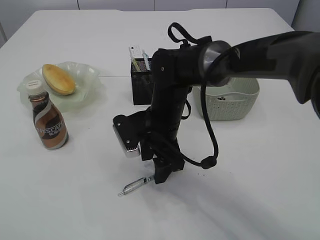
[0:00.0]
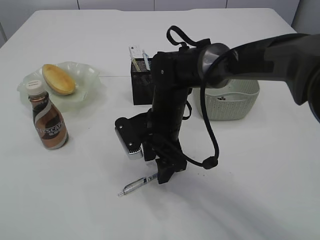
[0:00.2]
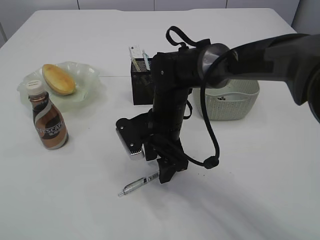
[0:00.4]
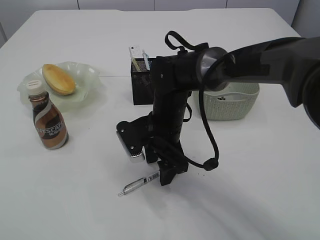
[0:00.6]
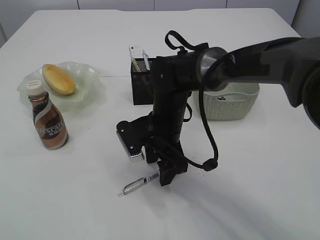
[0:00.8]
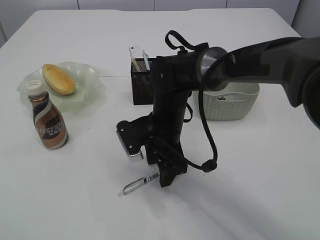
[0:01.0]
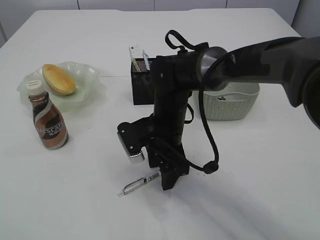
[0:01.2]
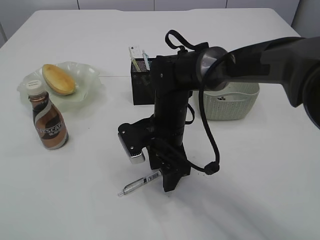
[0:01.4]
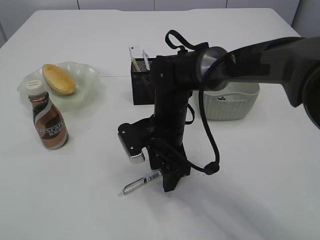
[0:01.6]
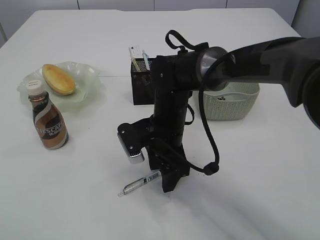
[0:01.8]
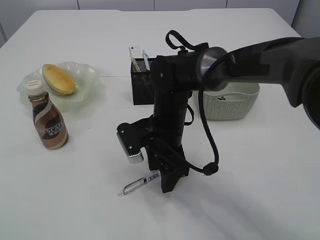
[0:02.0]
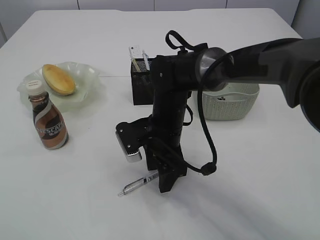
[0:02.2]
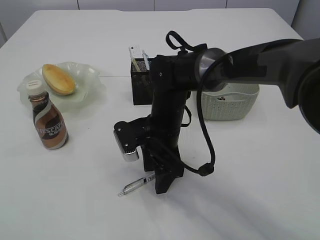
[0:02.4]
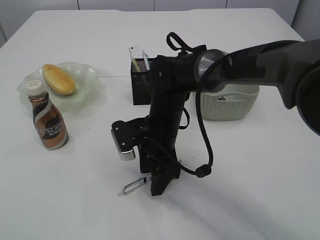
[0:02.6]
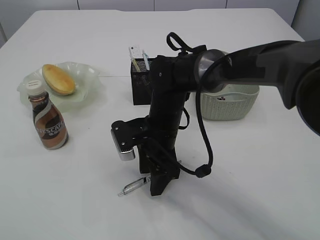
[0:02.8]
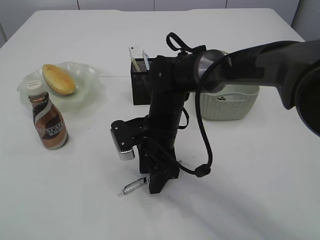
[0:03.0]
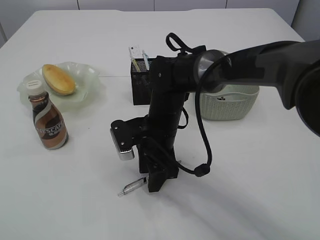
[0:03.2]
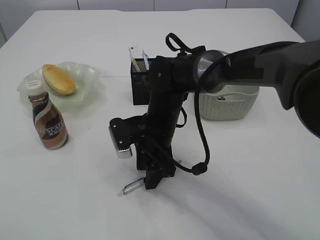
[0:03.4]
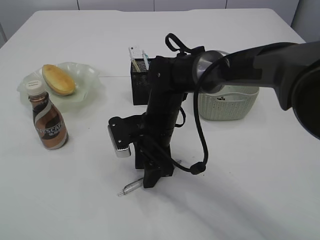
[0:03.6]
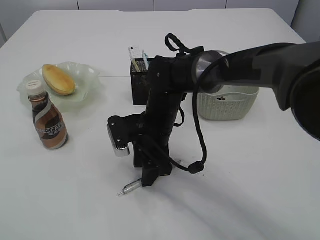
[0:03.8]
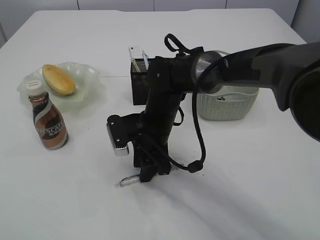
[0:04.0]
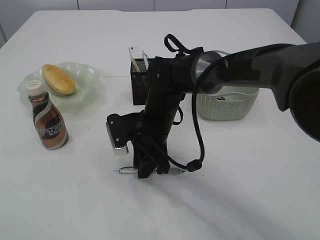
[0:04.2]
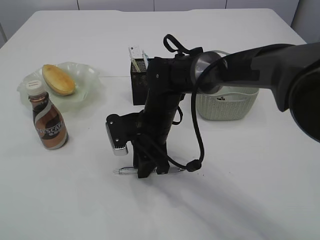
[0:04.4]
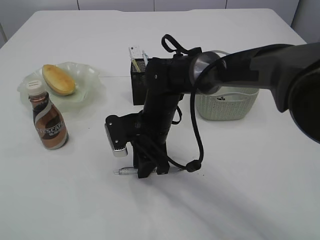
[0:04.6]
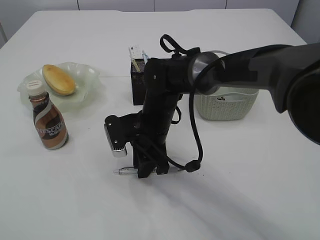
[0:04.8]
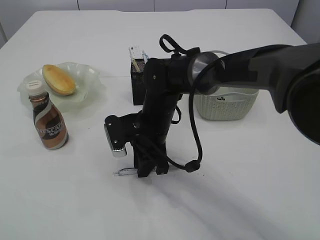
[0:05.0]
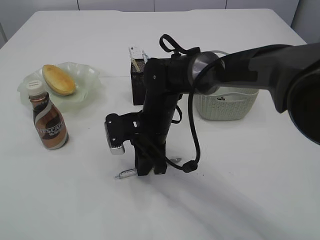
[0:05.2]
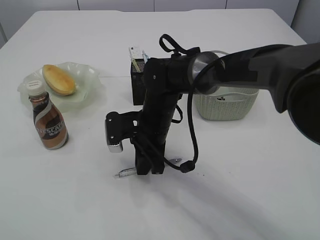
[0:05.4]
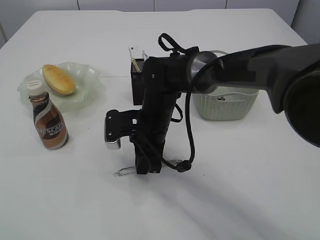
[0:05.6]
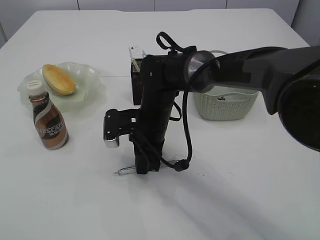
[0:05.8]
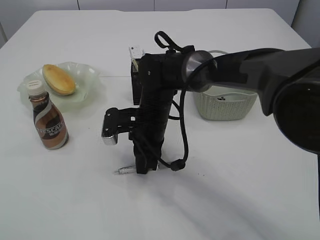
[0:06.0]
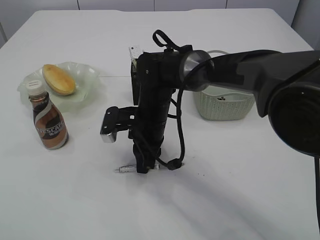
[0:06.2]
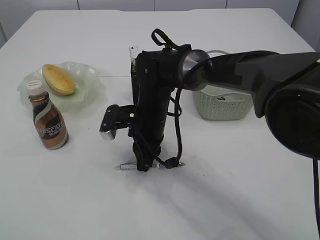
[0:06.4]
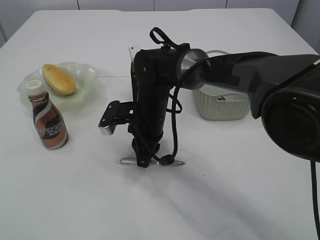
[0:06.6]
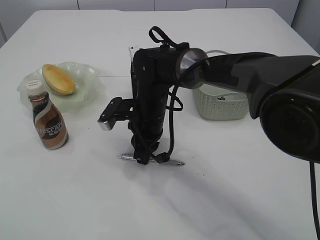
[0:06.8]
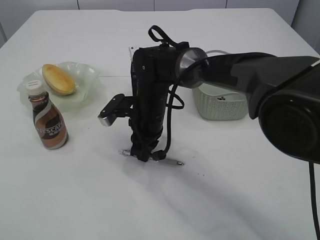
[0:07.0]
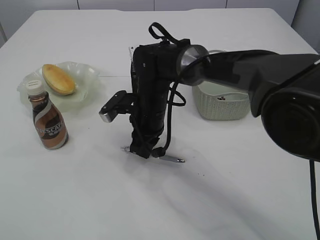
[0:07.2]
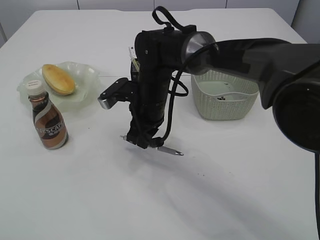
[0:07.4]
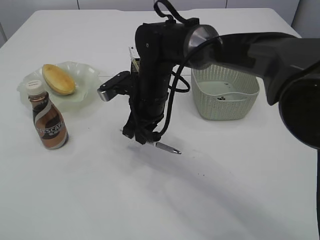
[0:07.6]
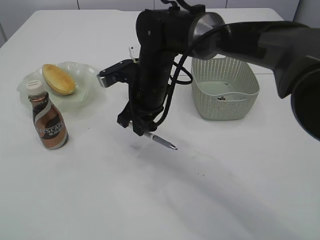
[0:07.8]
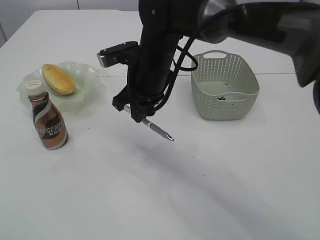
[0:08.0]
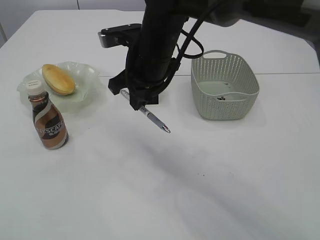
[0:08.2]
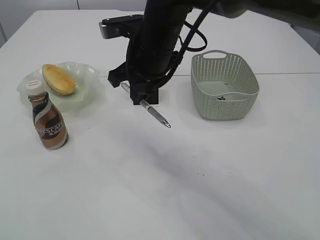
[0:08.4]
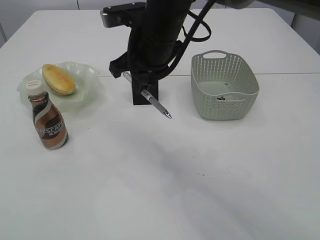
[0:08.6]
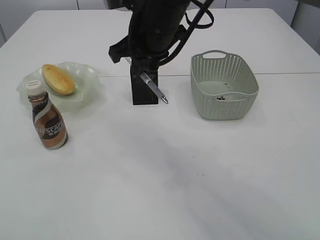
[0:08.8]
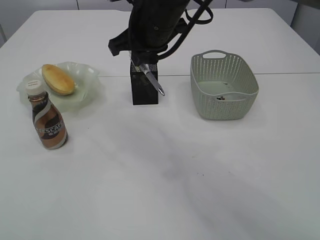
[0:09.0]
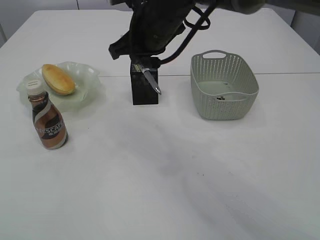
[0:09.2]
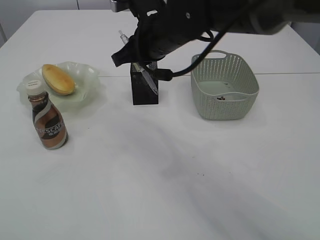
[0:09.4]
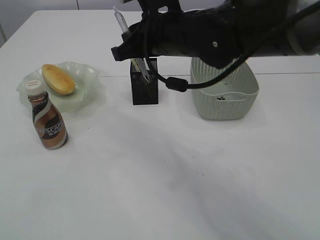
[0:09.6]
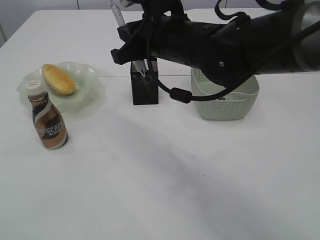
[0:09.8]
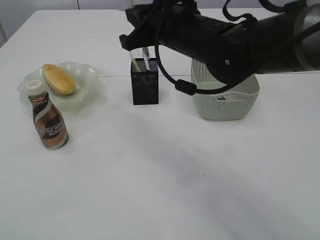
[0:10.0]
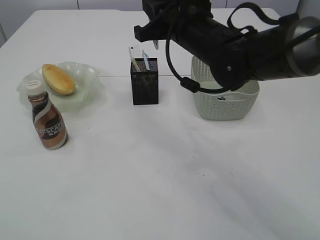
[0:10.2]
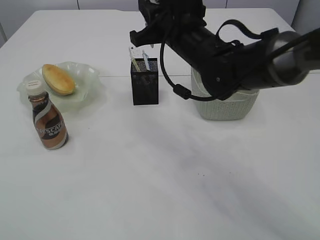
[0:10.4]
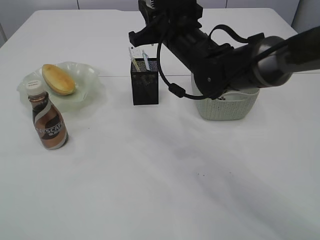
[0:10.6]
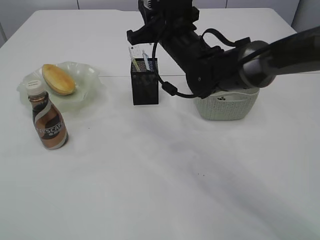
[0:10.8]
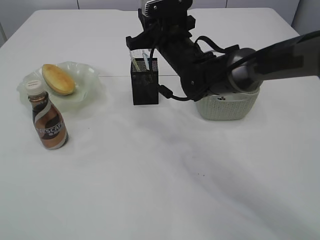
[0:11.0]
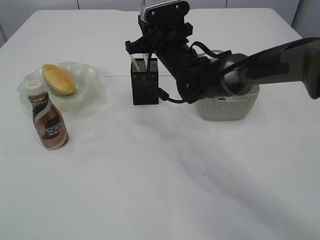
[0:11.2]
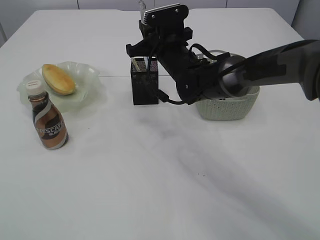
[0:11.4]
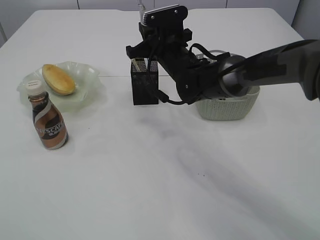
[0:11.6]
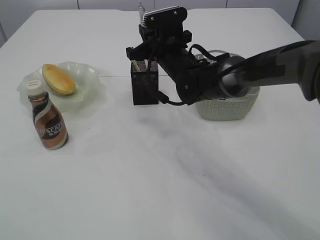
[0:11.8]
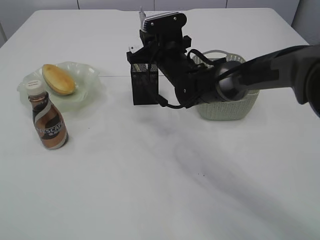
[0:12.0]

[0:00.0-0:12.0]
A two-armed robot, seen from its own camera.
Step, 0:00.0 to 0:07.6: Pick up the pen with right arm.
0:00.0 to 0:03.0: The grippers stay close to where they were, moving slightly.
0:03.0 to 0:04.4: The right gripper closes its fingers.
0:04.4 to 0:06.0: The grippers stay close to where they were, moving slightly.
0:06.0 to 0:07.6: The right gripper moves upward, roughly 5 cm.
0:07.6 to 0:09.0: The right gripper moves upward, roughly 15 cm.
0:09.0 to 0:10.4: The right gripper ends up roughly 5 cm from where it was.
0:10.4 to 0:12.0: The right gripper is displaced downward and forward by some 10 cm.

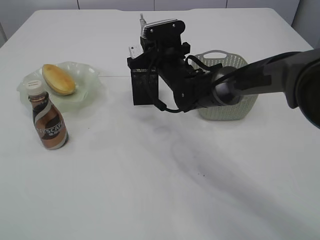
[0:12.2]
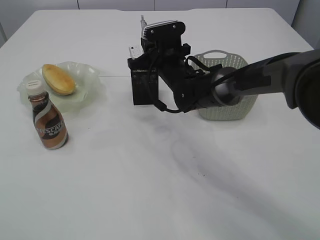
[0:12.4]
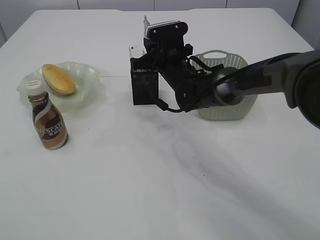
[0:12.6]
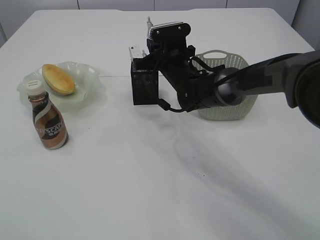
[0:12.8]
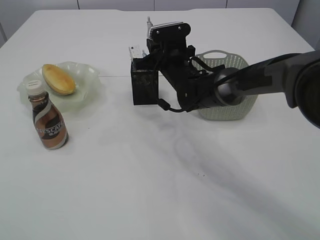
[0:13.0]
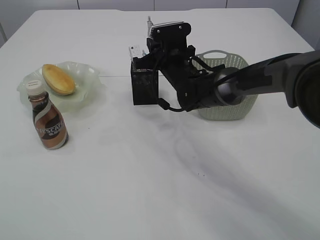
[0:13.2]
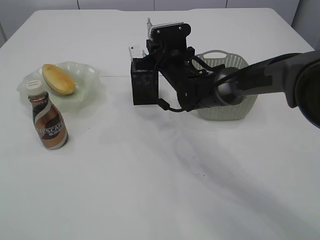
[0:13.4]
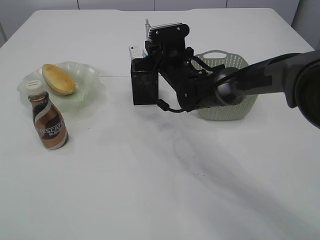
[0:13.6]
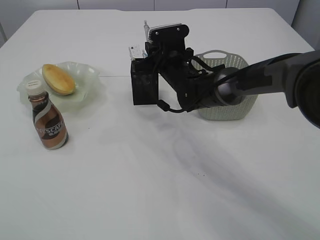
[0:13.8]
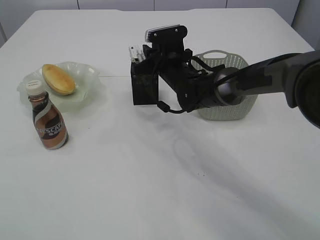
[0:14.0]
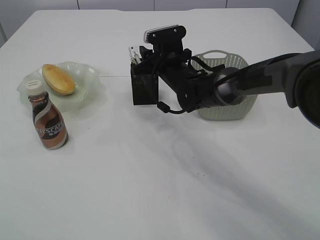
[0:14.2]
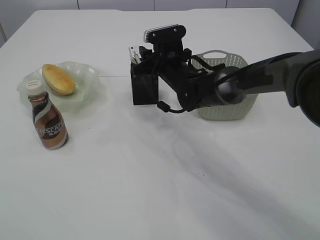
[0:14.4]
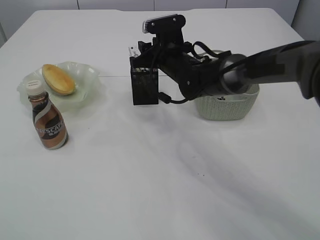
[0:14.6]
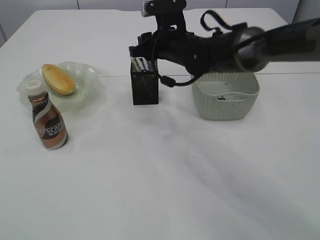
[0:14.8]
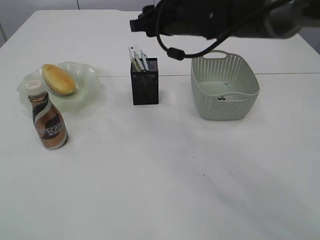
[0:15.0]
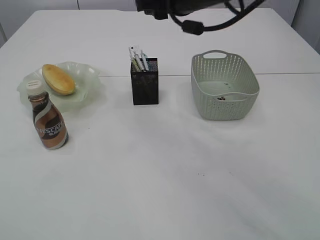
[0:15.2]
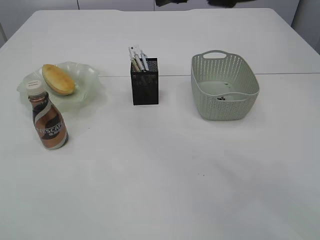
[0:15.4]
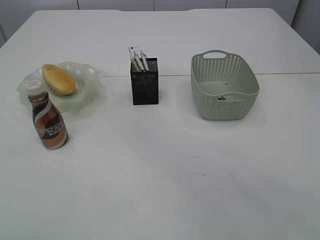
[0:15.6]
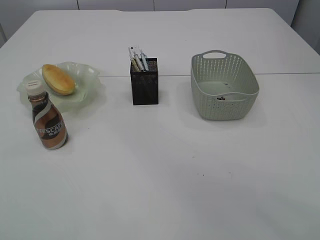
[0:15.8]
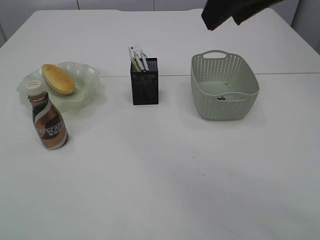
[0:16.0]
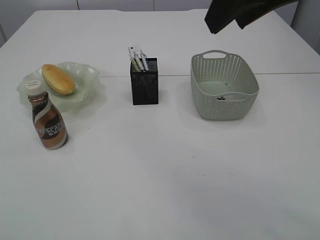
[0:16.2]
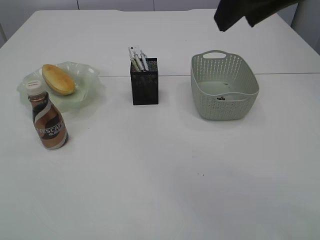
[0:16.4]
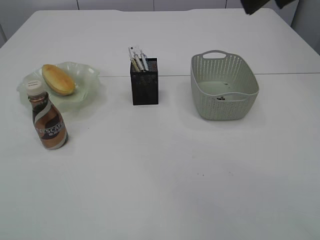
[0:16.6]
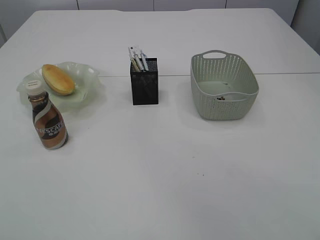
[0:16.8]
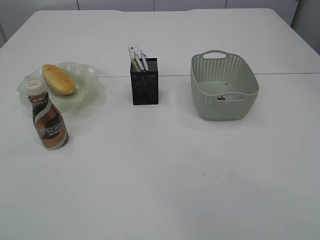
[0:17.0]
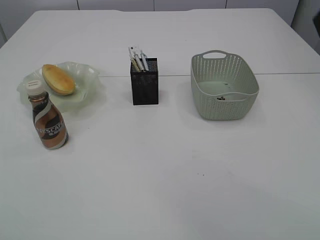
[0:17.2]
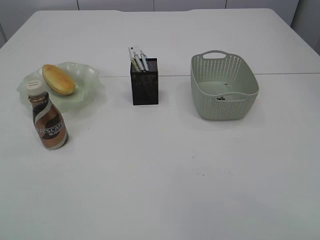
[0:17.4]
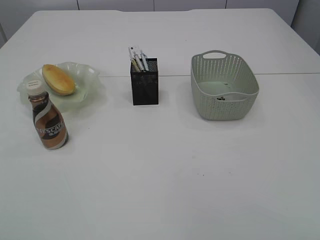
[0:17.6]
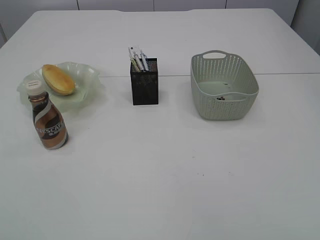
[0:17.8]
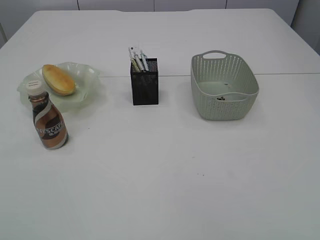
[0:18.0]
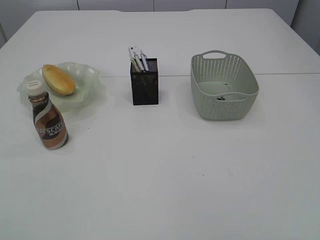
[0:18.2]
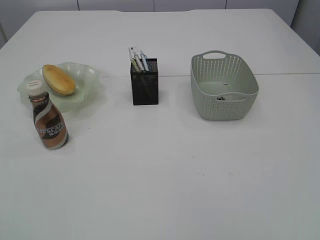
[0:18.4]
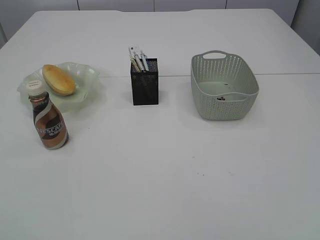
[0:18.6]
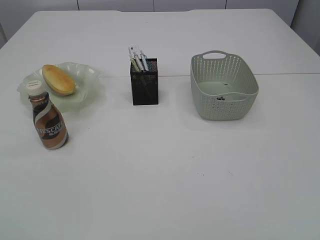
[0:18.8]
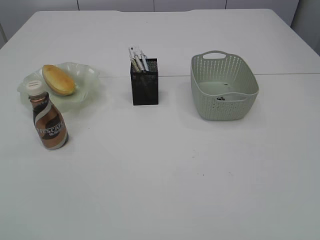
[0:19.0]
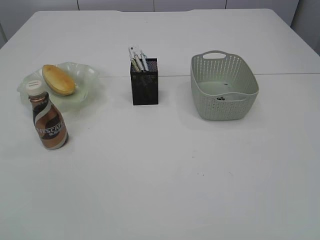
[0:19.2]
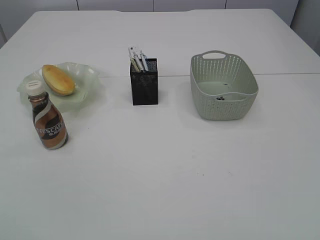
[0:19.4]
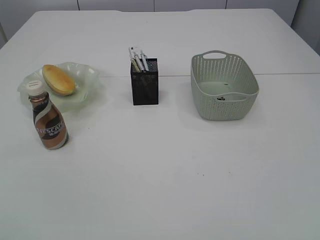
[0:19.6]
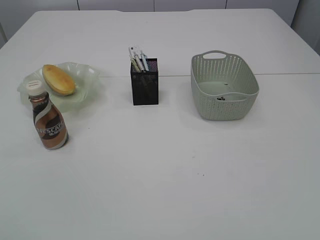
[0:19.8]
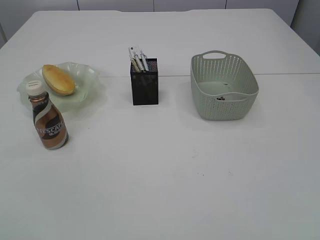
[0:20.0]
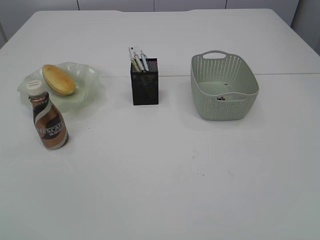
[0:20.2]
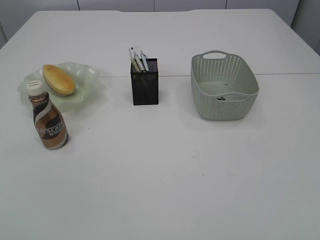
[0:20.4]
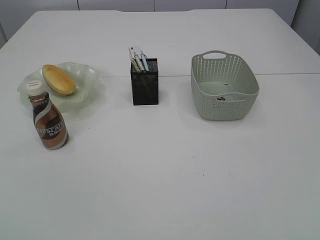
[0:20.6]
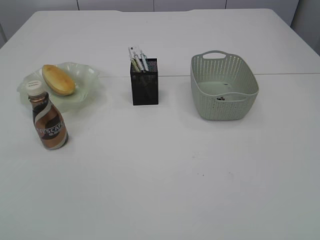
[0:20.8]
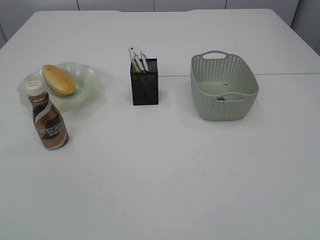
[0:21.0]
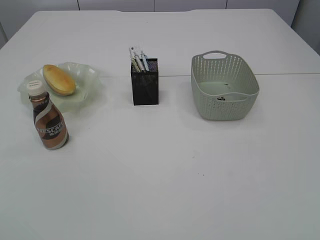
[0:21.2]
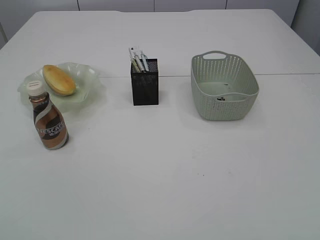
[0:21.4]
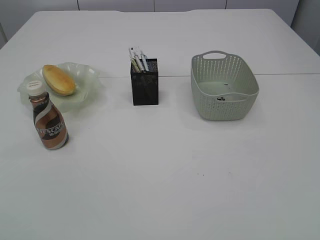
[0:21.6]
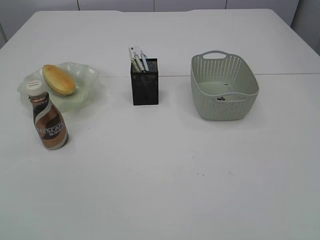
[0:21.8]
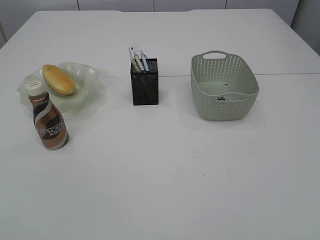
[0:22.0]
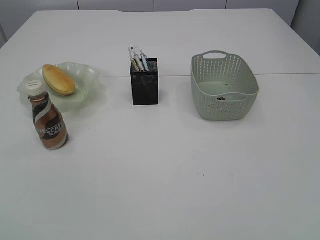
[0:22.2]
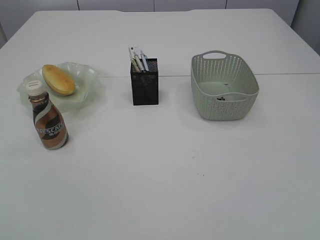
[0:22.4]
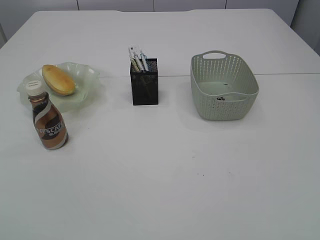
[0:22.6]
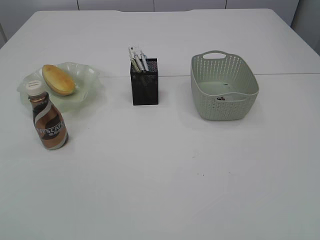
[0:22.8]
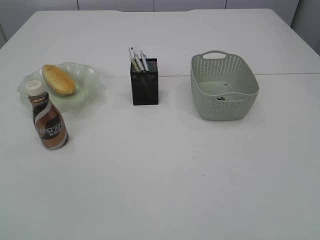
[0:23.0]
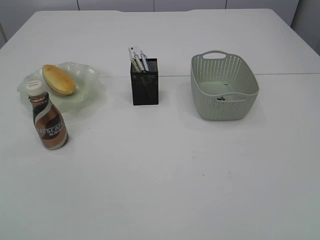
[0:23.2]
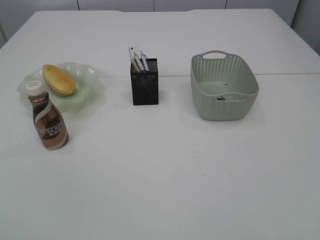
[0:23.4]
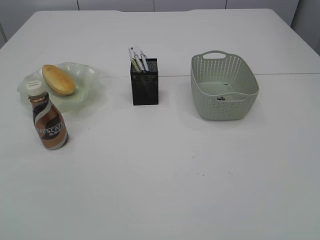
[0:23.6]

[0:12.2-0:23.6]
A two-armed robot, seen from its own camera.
Step, 0:12.2 to 0:15.0: Place the pen into the pen holder.
0:12.2 to 0:13.6: The grippers stay close to where they were, moving slightly.
0:13.6 to 0:15.0: The right gripper travels upward by approximately 10 cm, and opens.
0:15.0 to 0:16.4: The right gripper moves backward, upward and to the right, approximately 25 cm; the left gripper moves upward, about 5 cm, and opens its fingers.
0:16.4 to 0:17.8: The right gripper heads backward and to the right, covering some 20 cm.
0:20.8 to 0:23.6: Both grippers stay put.
